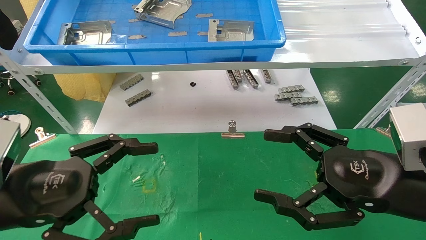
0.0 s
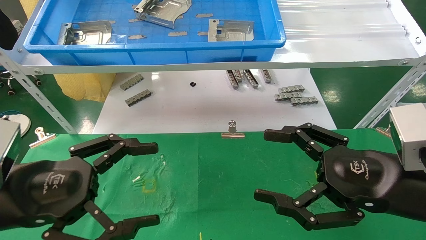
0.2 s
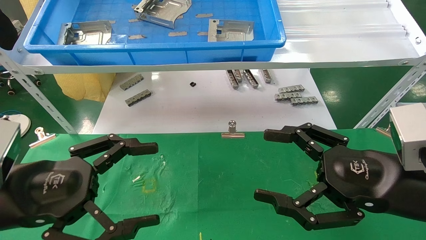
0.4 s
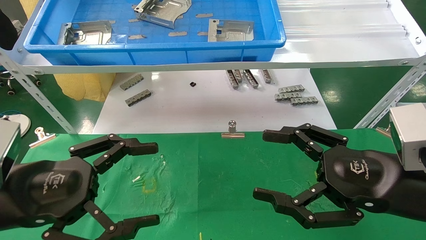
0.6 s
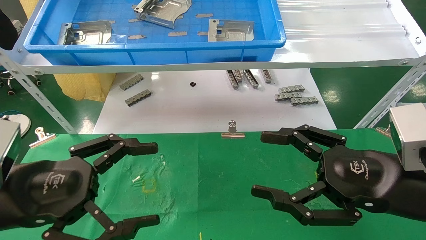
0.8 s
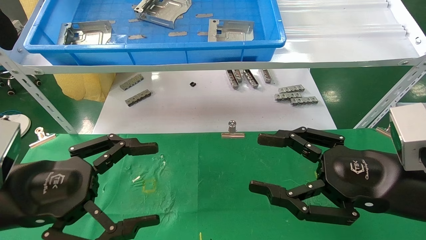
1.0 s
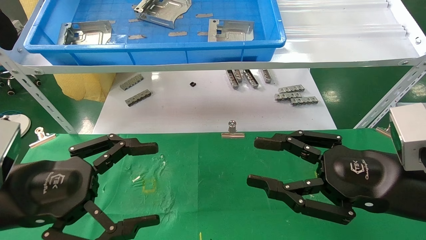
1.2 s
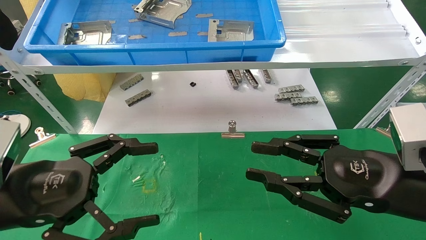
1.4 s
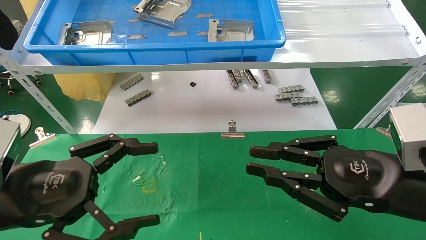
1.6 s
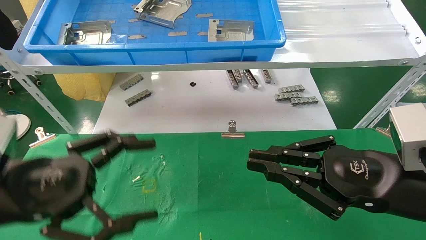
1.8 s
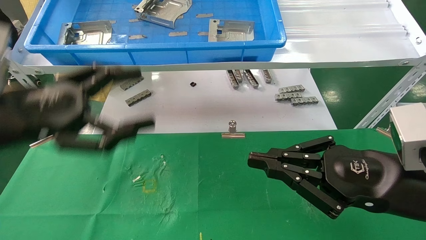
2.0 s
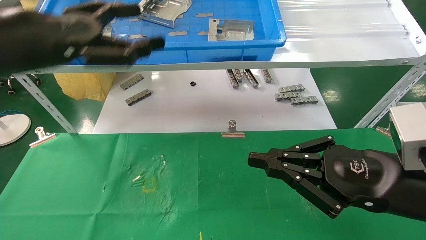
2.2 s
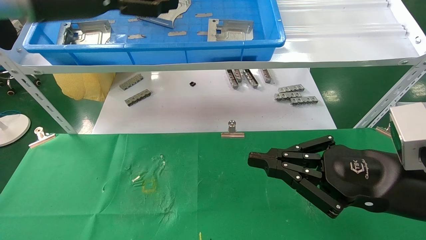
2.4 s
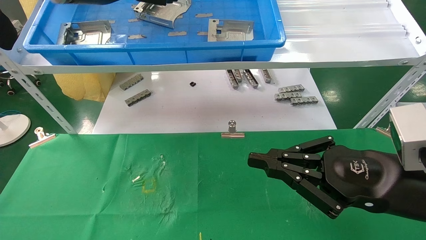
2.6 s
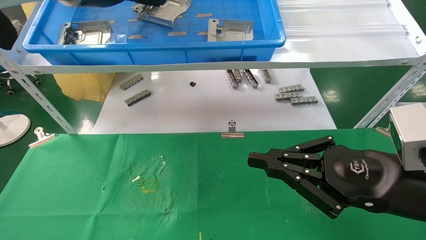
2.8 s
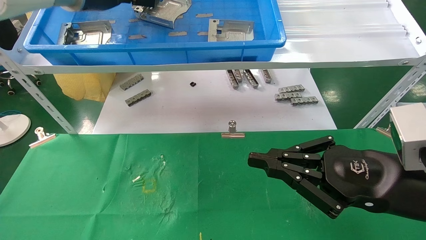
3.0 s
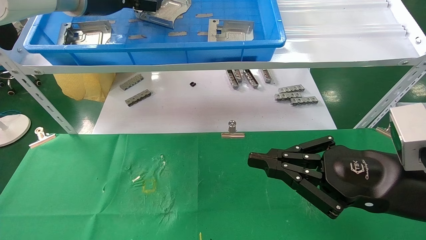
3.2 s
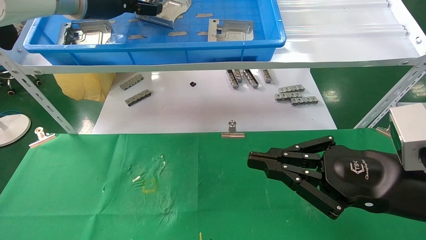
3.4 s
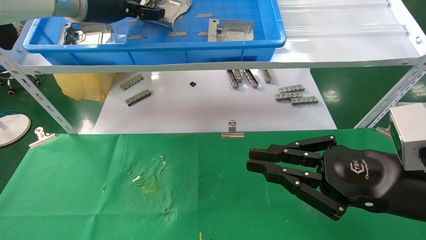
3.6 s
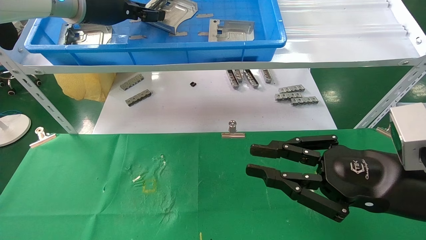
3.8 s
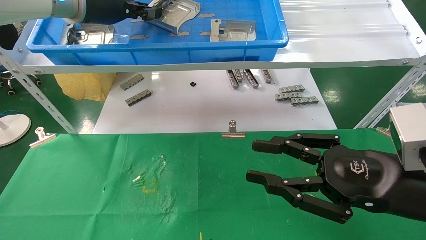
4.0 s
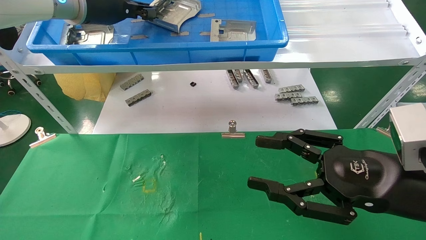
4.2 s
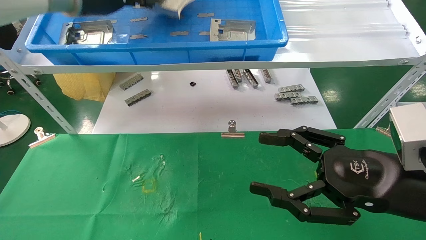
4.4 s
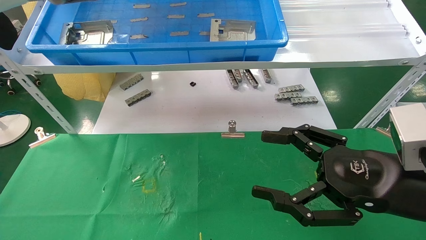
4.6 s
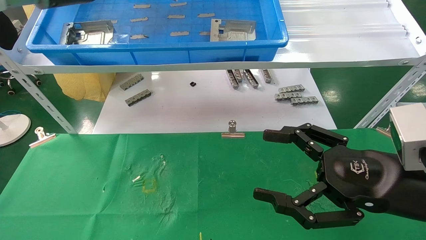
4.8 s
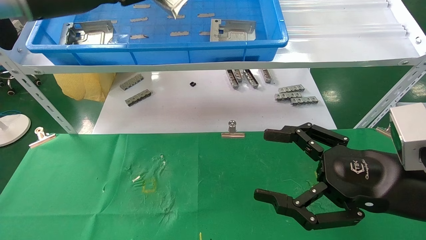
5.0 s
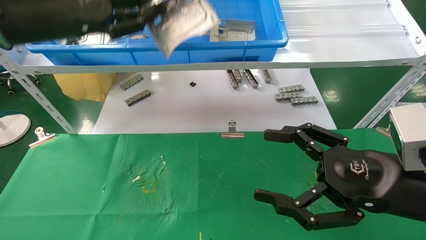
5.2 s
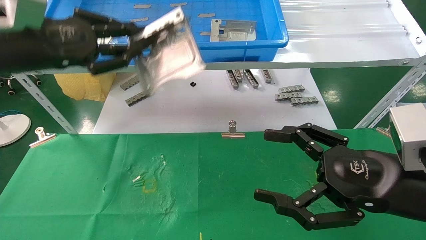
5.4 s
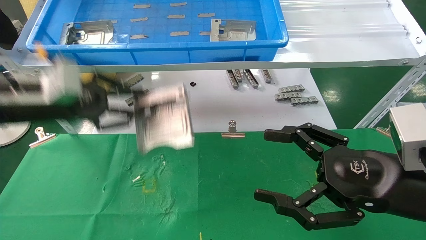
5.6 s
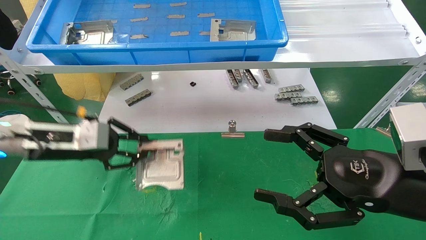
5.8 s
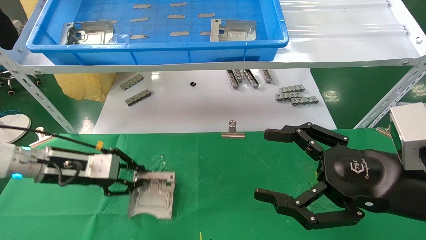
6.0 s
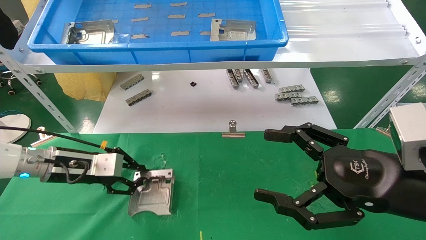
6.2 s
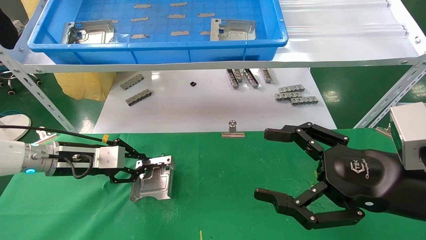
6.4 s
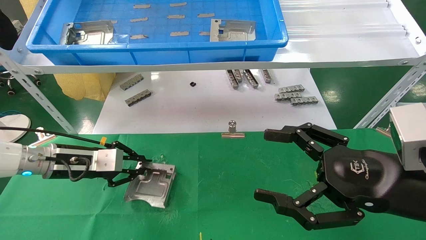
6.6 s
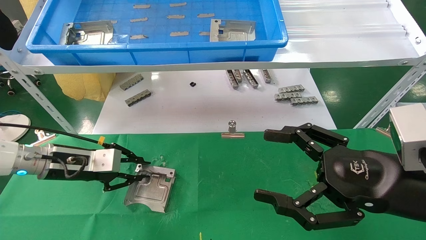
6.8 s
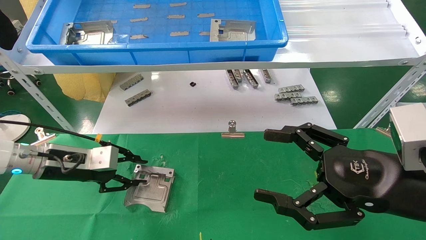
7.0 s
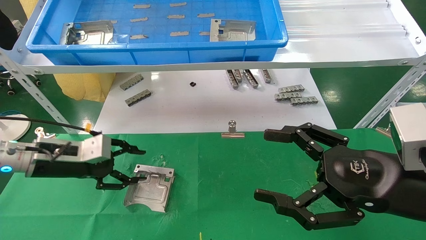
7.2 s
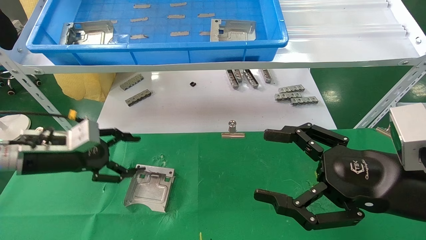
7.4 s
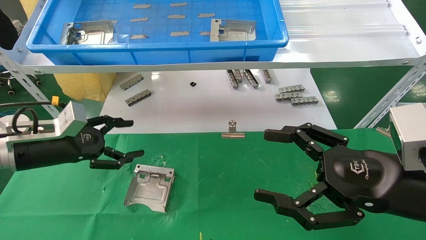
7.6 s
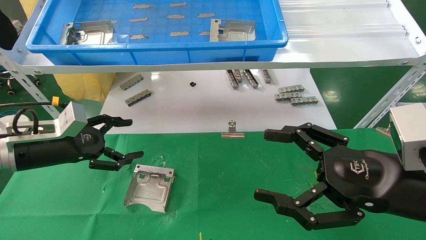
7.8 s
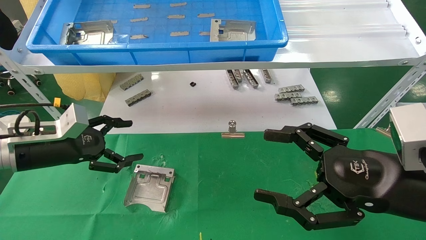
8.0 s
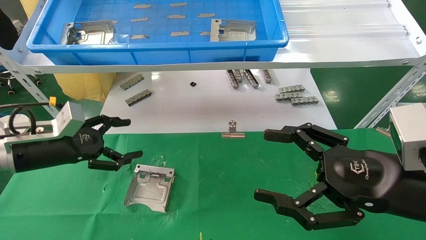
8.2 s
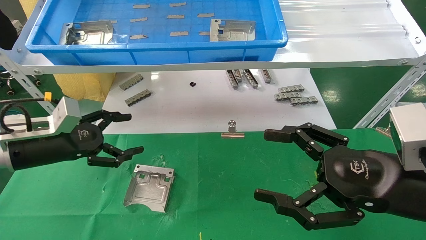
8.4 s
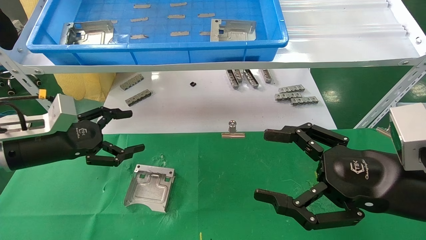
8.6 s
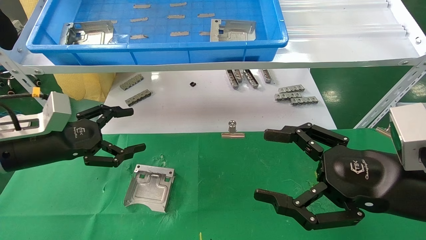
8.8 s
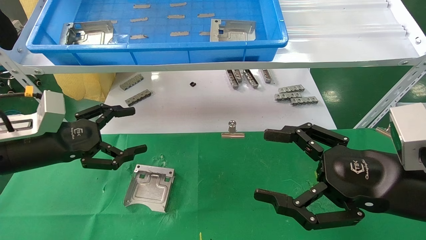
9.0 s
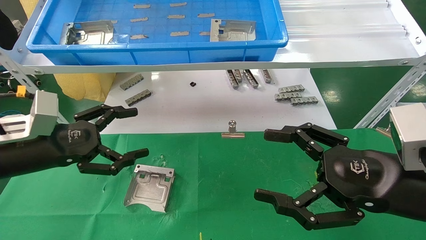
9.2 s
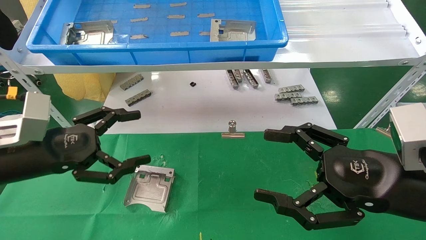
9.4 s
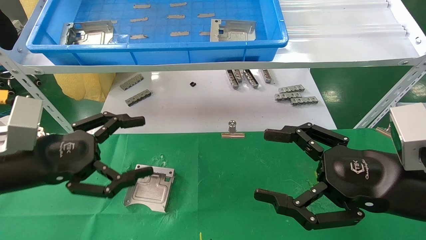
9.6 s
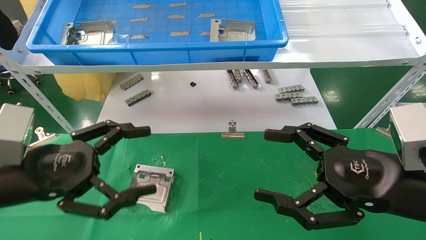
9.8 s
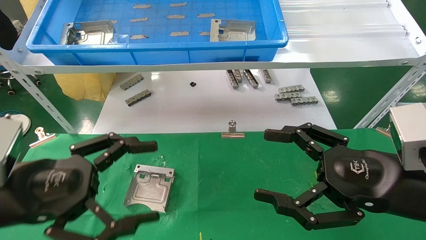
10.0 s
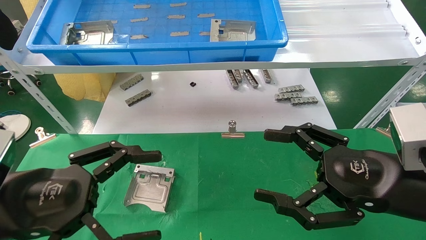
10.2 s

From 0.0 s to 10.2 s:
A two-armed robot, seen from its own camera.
Task of the whole recording: use the mechanical arm to pick up the parts and place them on the table.
Step, from 2.2 s to 4.2 s: Pick up the hard drive bracket from the feeding area.
Step, from 4.4 s to 7.2 s: Place the hard drive bracket into the box.
From 0.0 s to 1.4 s: The right gripper closes.
From 1.4 s to 3.0 s: The left gripper goes about 35 cm upward and forward; the right gripper closes.
From 3.0 s to 4.4 s: The right gripper opens. The left gripper closes its fingers.
From 4.4 s to 5.8 s: The left gripper shifts approximately 25 cm downward. Meanwhile the right gripper opens.
From 5.8 s to 7.2 s: The left gripper opens.
From 7.2 s to 8.8 s: The left gripper moves approximately 5 cm, and opens its fingers.
From 8.8 s to 10.2 s: The left gripper goes roughly 15 cm backward and to the right.

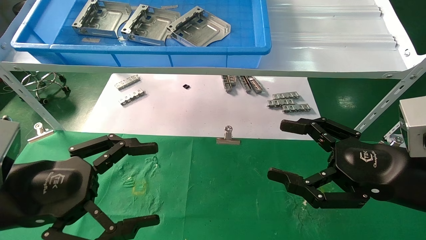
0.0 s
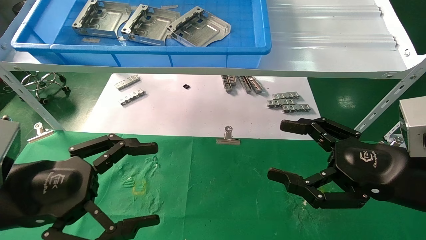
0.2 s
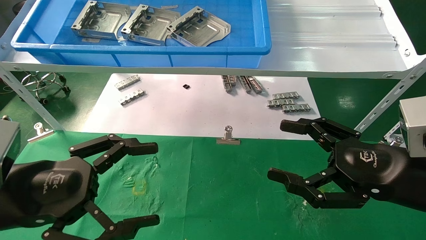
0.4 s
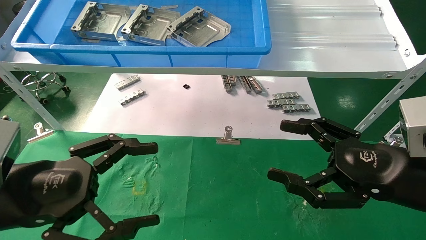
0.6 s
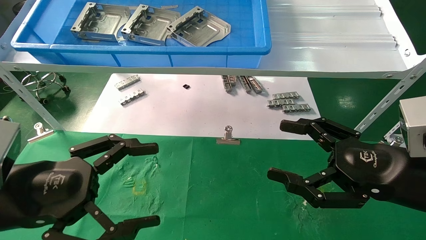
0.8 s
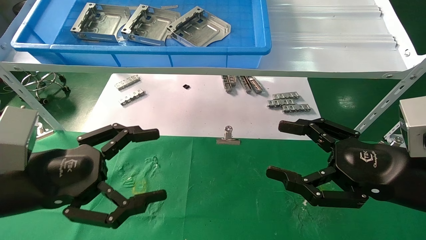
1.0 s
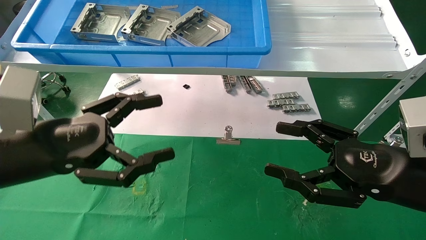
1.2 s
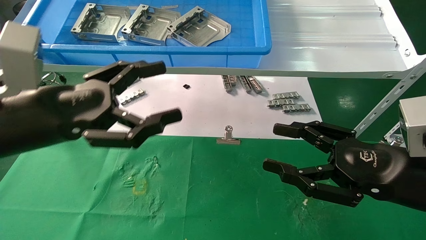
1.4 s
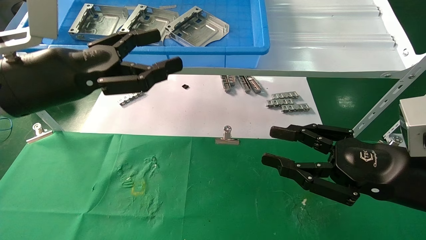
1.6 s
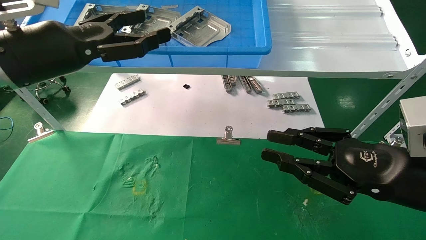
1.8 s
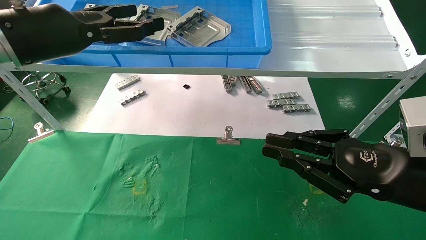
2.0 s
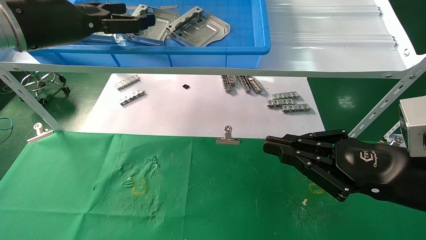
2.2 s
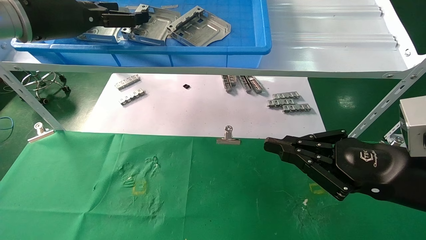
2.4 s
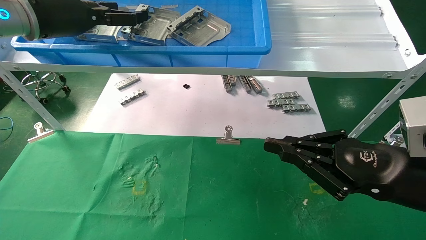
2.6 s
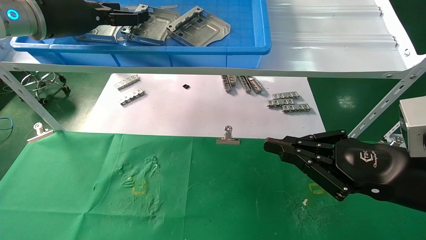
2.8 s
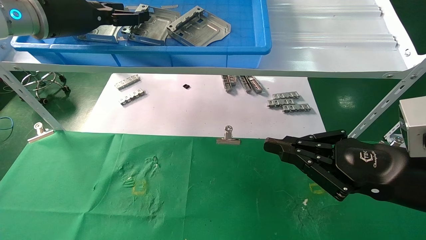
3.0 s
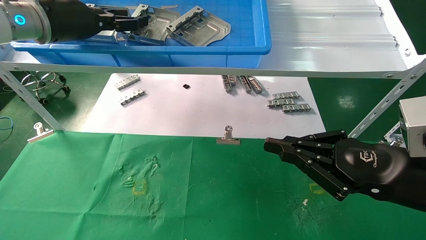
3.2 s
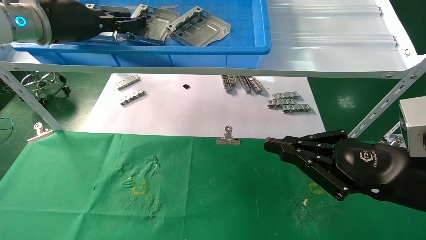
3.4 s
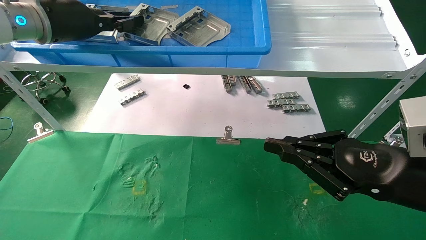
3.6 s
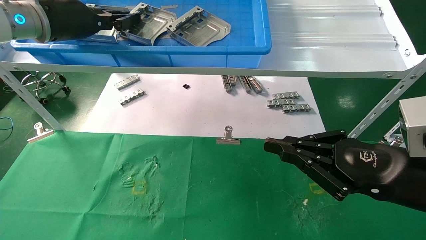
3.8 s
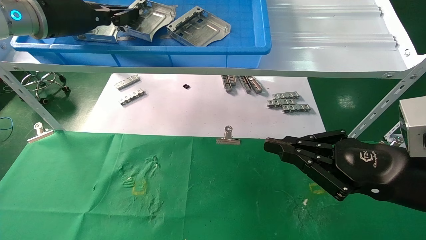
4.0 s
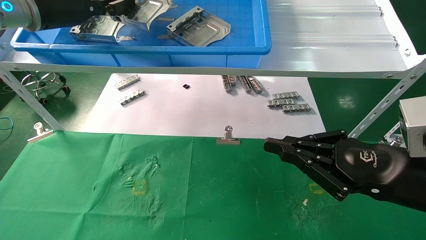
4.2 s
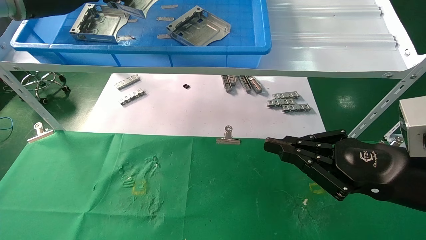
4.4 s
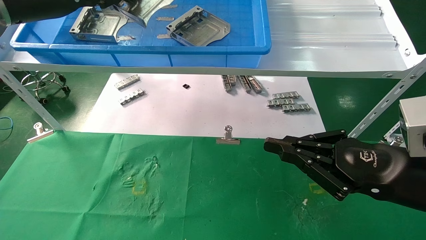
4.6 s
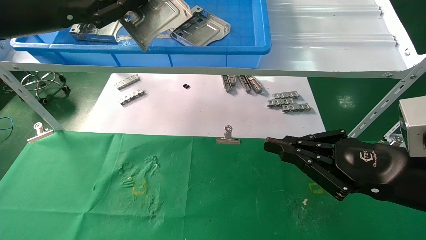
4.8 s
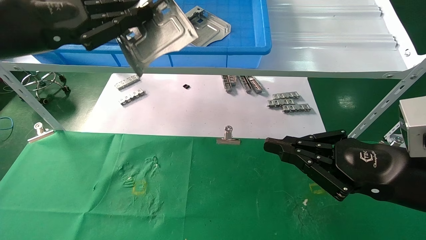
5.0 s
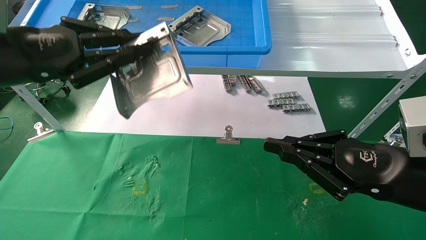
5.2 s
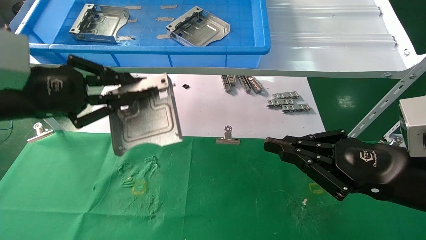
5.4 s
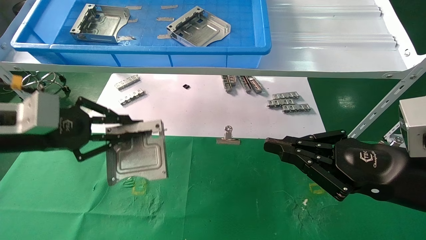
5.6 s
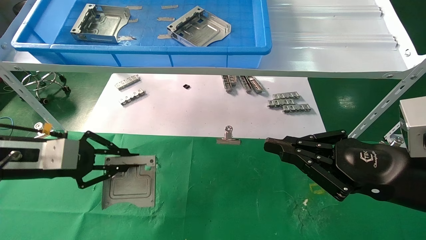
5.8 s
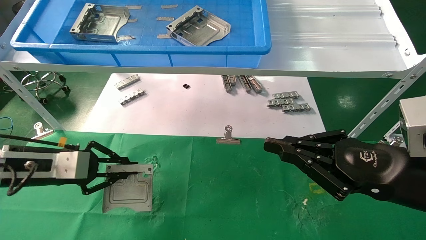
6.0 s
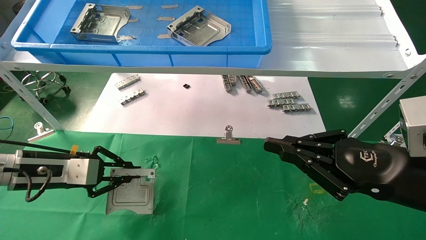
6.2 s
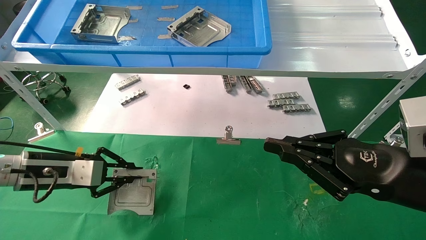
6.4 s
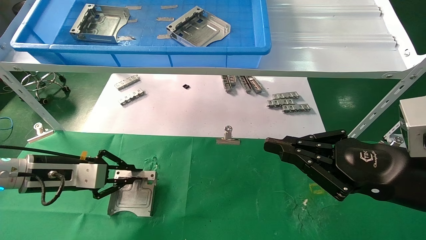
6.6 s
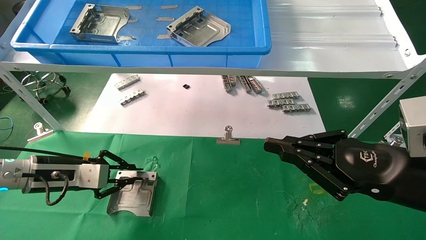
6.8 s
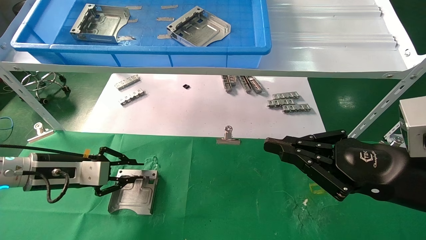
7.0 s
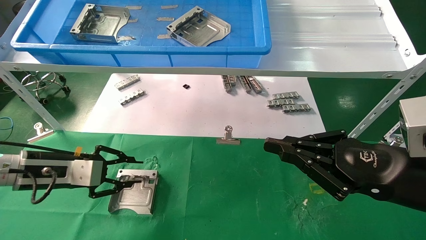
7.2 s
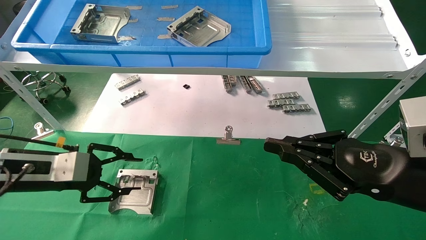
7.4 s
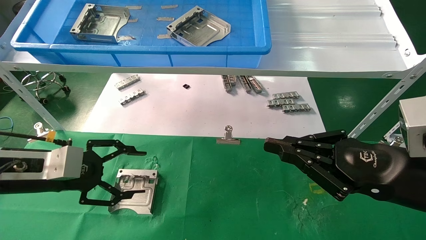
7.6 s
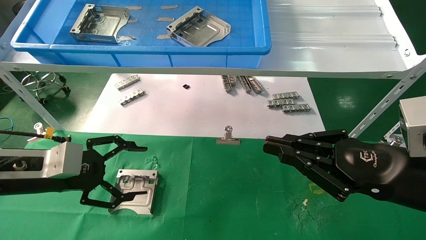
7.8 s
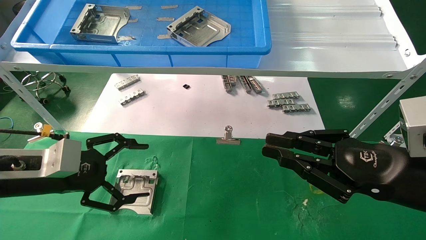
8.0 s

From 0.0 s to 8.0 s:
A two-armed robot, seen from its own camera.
Task of the whole recording: use the mechanical arm to pick up the parts and place them on the table.
Step, from 1.2 s to 3.8 s: Pick up the hard drive bracket from the feeding area.
Step, from 4.0 s to 7.0 s: Place the hard drive bracket into the box.
From 0.0 s to 1.6 s: The right gripper closes up. The left gripper heads upward and forward, covering approximately 15 cm.
From 1.6 s to 3.2 s: The right gripper closes up. The left gripper shifts about 15 cm forward and upward, and closes.
From 3.2 s to 4.8 s: The left gripper is displaced backward by roughly 10 cm, and closes its fingers.
From 4.8 s to 6.4 s: The left gripper moves downward, some 25 cm.
From 6.4 s to 8.0 s: The left gripper moves backward, approximately 5 cm, and opens up.
